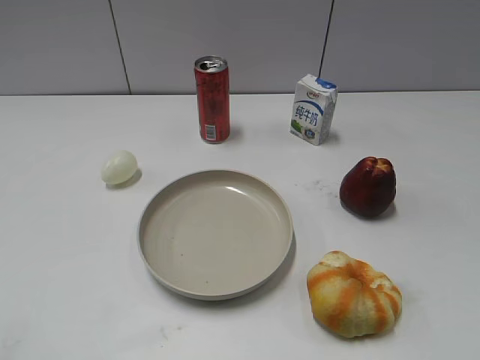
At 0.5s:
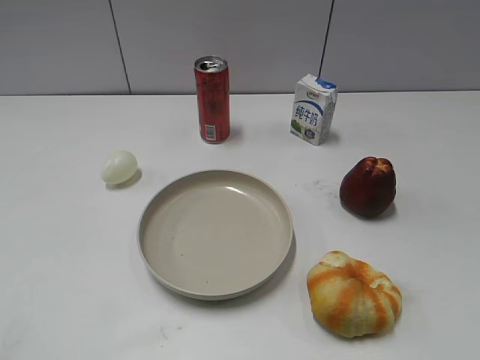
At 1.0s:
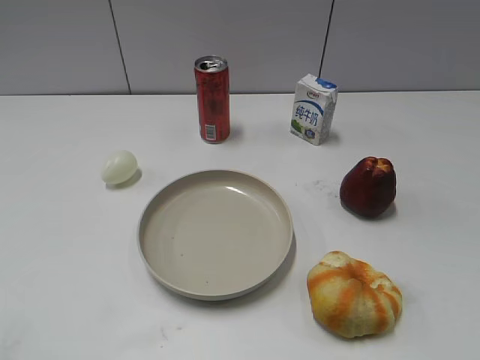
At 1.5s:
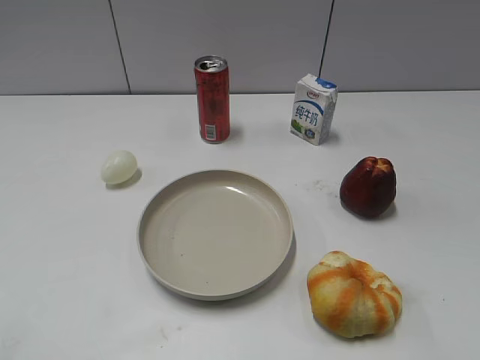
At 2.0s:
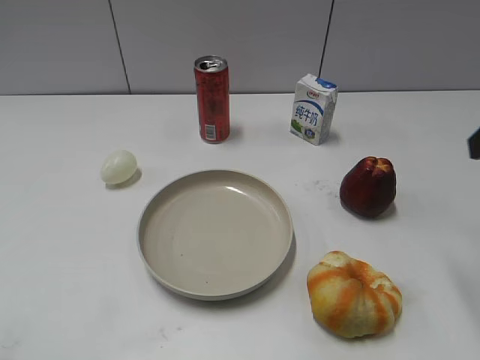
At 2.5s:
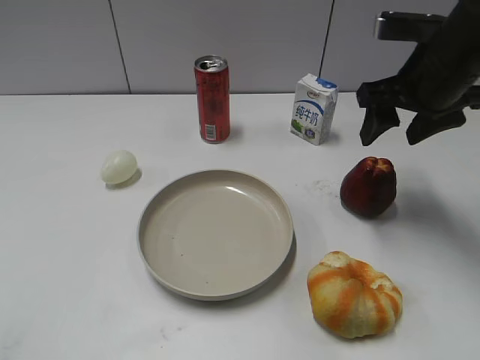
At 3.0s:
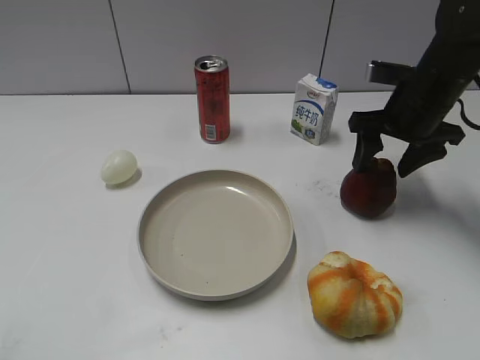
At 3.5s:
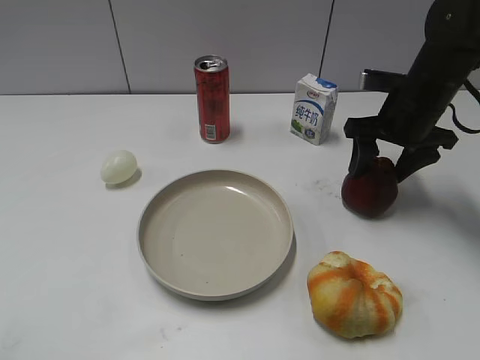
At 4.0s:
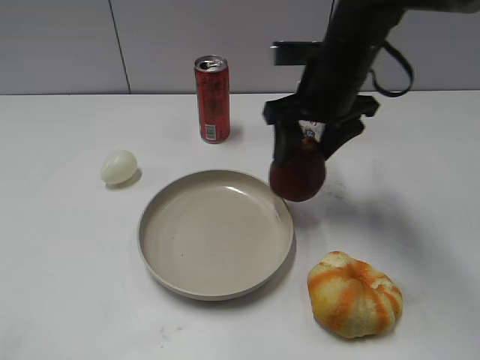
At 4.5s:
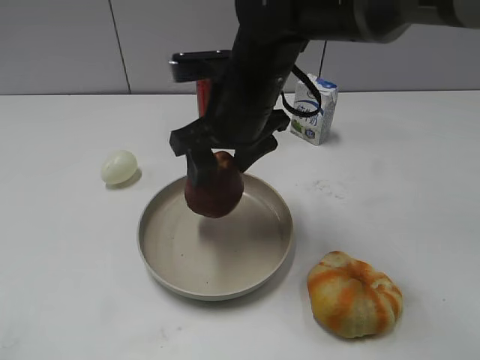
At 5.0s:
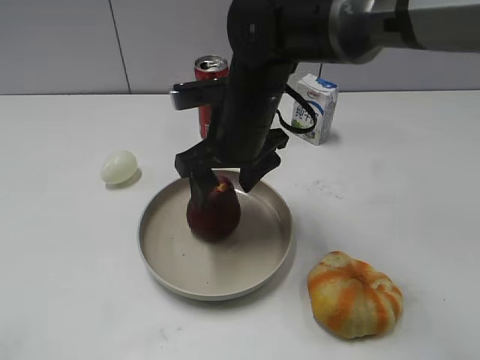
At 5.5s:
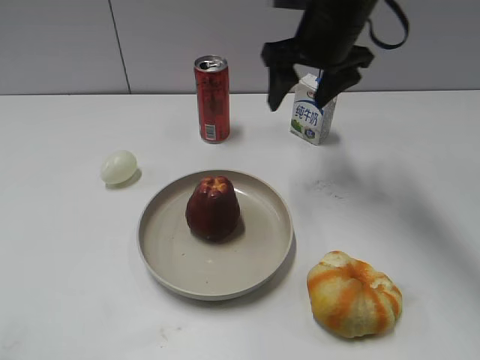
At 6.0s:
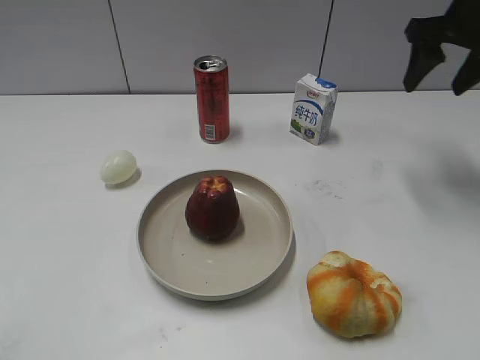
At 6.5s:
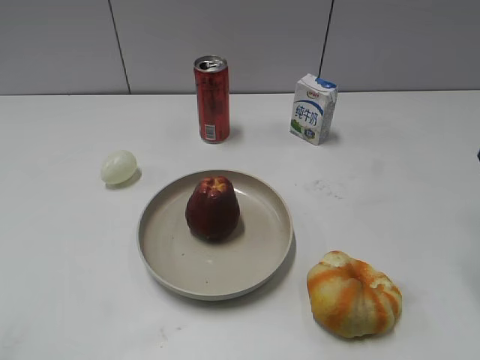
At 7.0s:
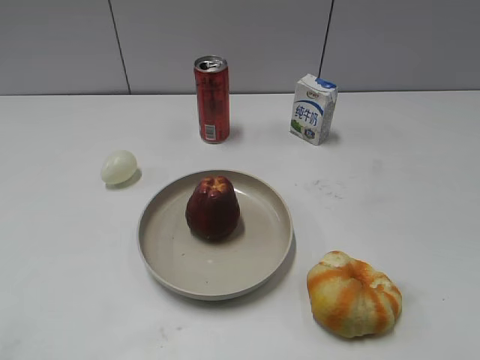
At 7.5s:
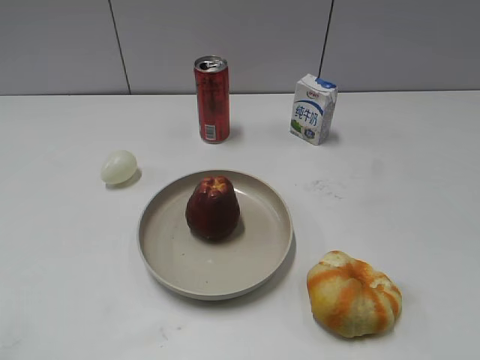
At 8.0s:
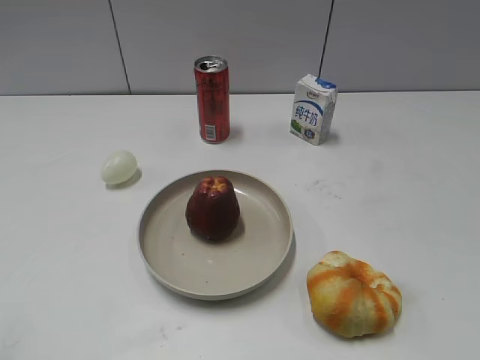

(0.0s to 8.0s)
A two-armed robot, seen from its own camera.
Step, 1.0s - 3.0s: Grasp the apple with right gripper.
Step, 3.5s - 5.0s: Place the apple on the plate with right gripper.
2.0s - 4.0s: The right gripper heads to the left, forward and downward, covering about 25 cm.
4.0s - 6.0s: The right gripper travels to the right and upward by some 20 cm.
6.0s - 8.0s: The right gripper is displaced backward by roughly 40 cm.
